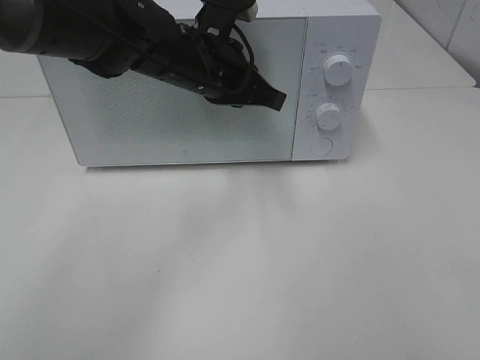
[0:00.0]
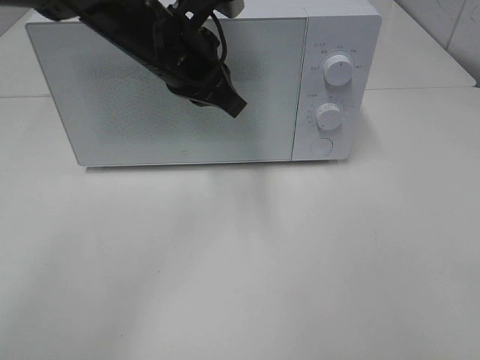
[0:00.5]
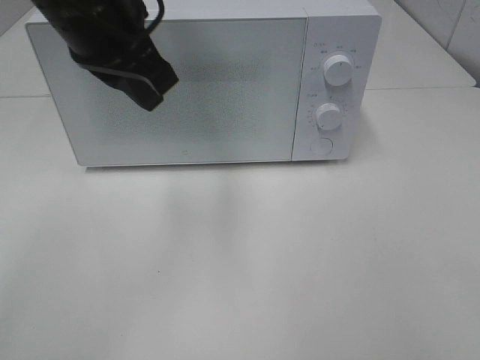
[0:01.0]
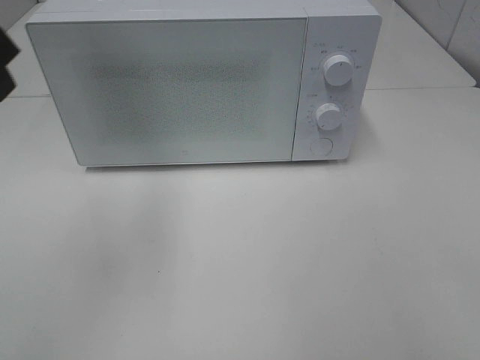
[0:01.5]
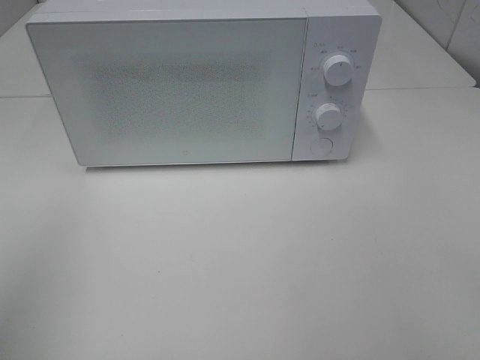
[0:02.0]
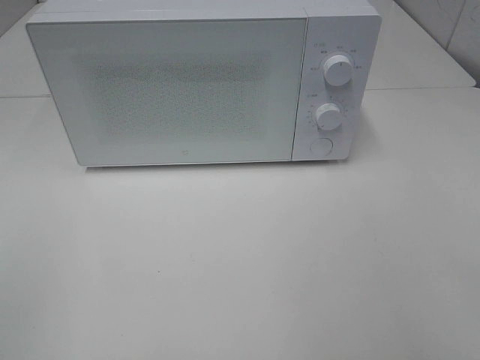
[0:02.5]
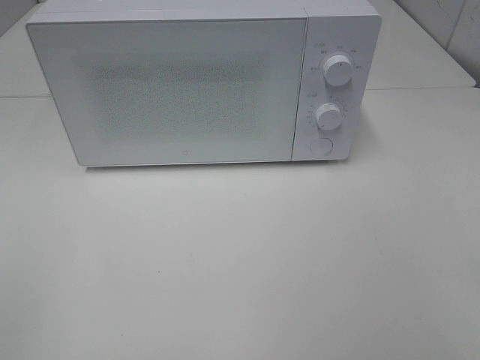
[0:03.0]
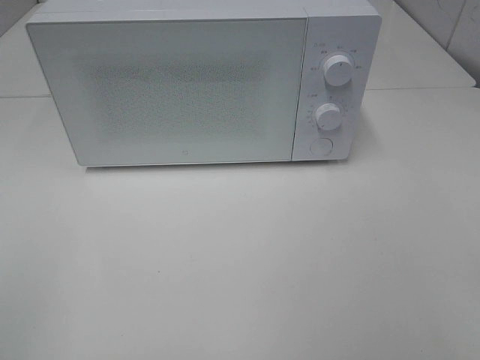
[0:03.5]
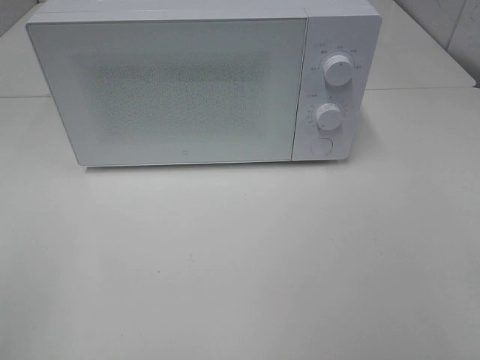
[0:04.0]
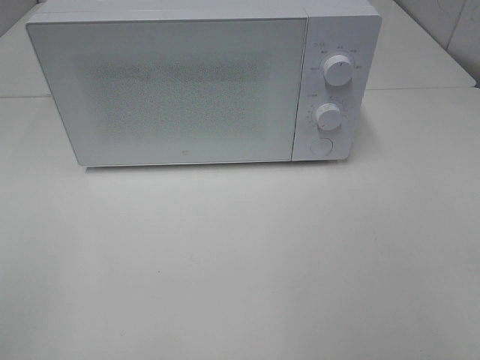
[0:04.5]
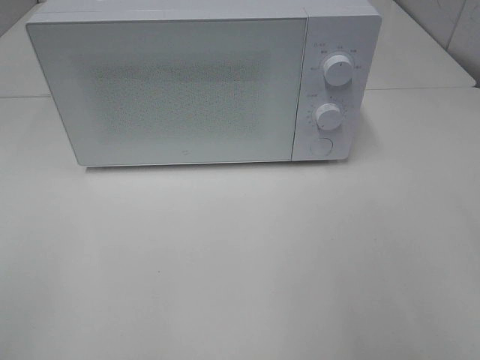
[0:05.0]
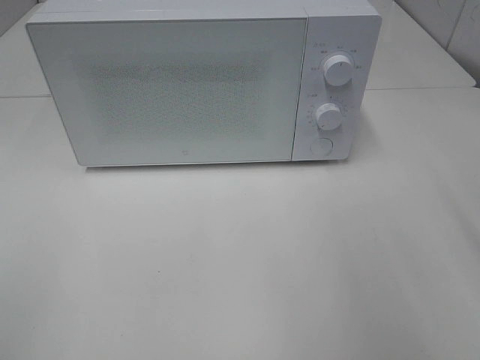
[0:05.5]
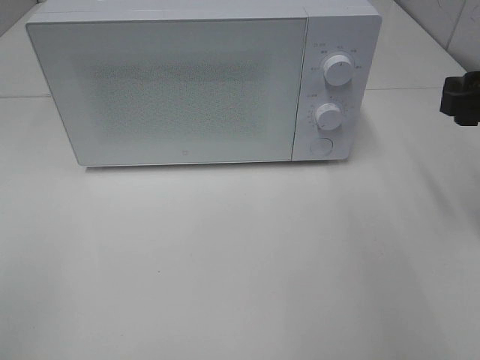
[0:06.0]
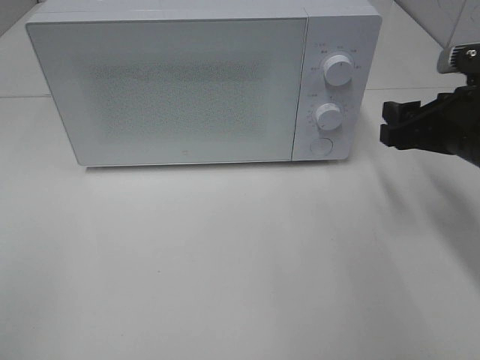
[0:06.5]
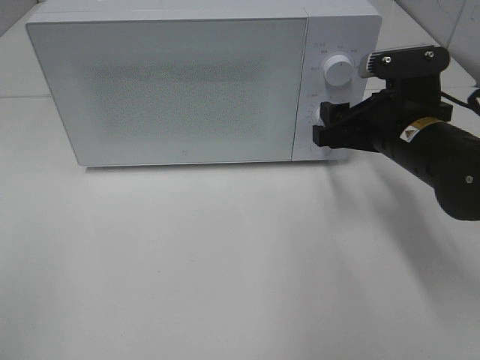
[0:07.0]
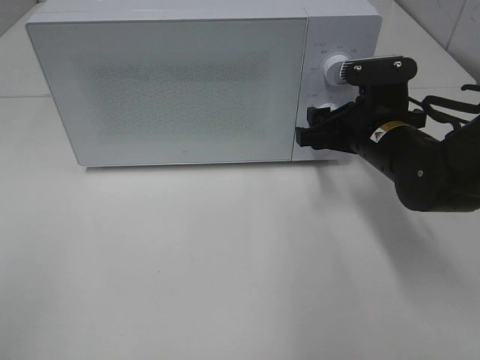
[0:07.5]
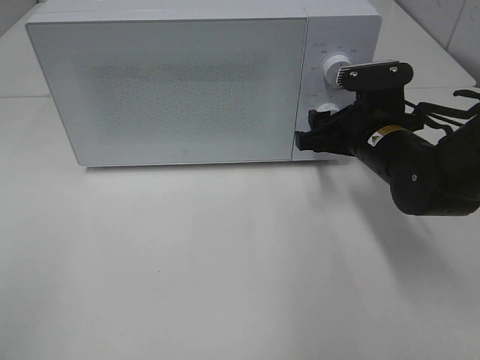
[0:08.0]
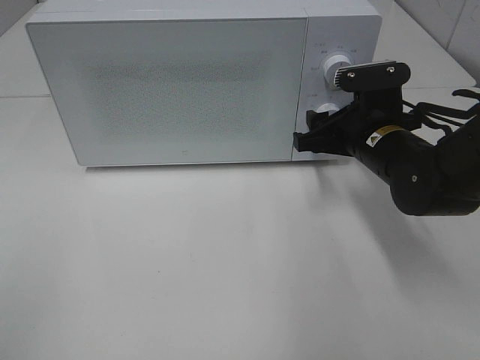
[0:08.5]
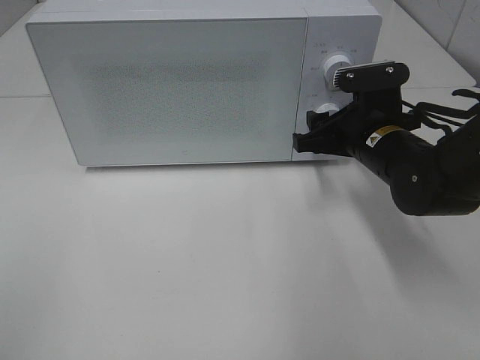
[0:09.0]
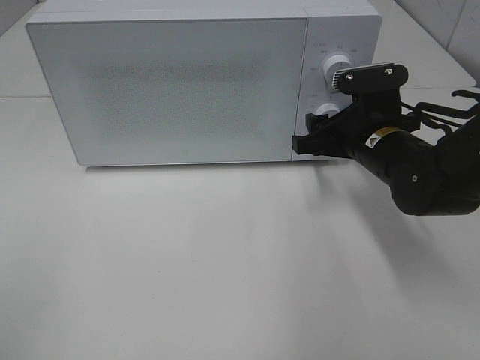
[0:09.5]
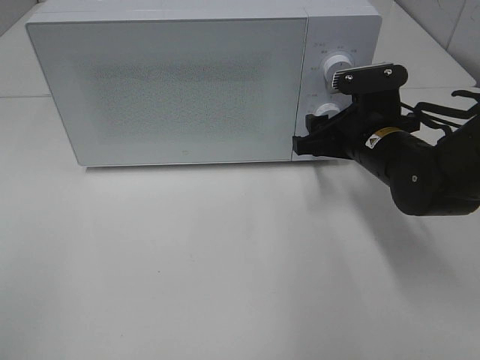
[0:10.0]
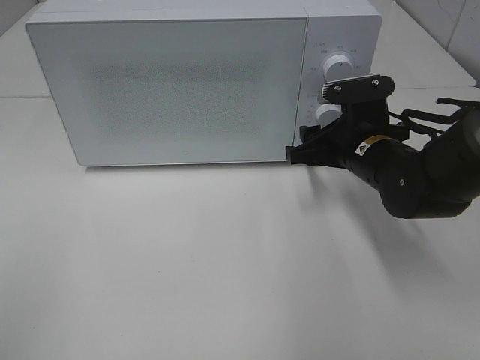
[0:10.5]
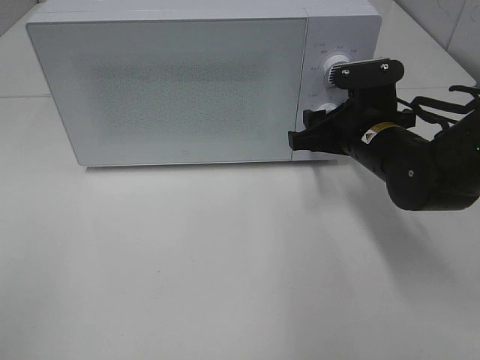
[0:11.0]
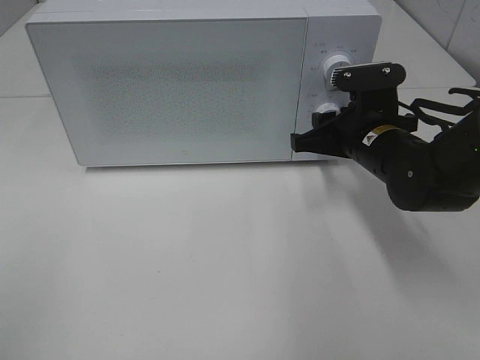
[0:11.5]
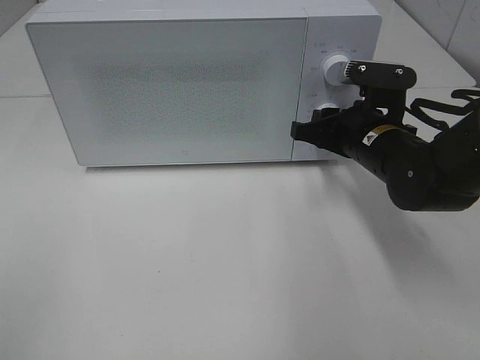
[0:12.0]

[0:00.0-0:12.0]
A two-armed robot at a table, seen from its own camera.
Task of the whole recording: Heat the burger.
0:00.0 to 0:02.0: The left gripper travels backward, to the left and upward by approximately 40 cm.
0:04.0 to 0:06.0: The right gripper heads forward, covering about 25 cm.
0:06.0 to 0:08.0: The right gripper goes about 15 cm to the left, downward and forward.
0:08.0 to 0:10.0: Neither gripper changes place.
0:10.0 to 0:12.0: The grippers stay close to where they were, moving slightly.

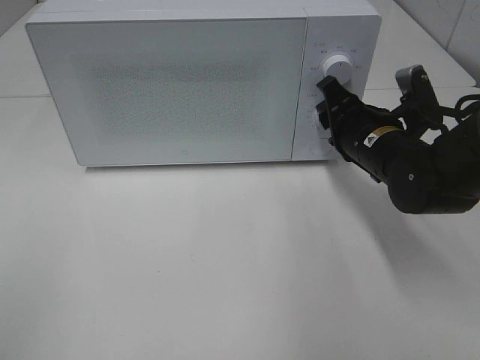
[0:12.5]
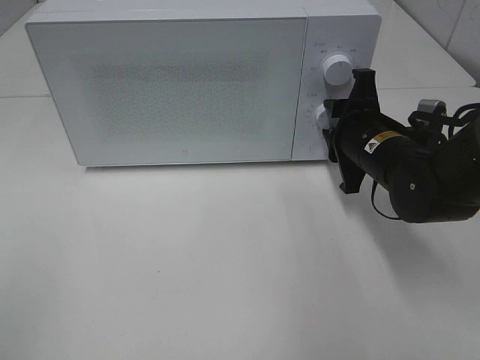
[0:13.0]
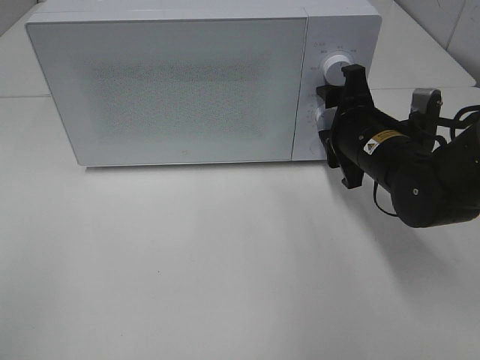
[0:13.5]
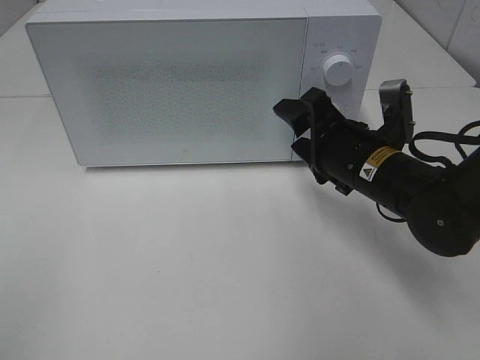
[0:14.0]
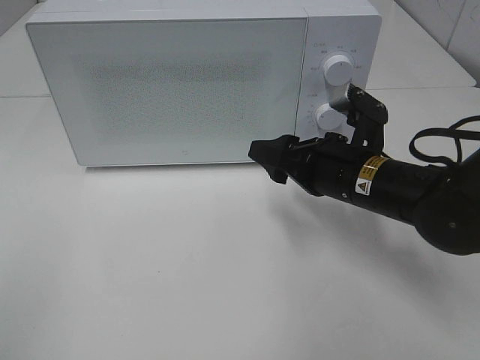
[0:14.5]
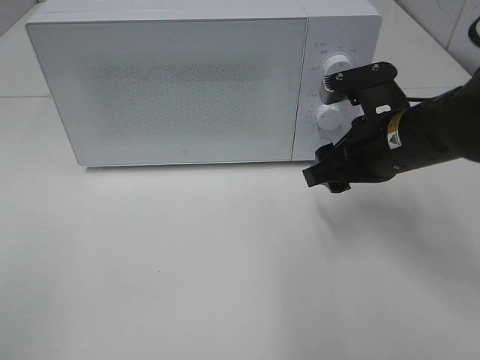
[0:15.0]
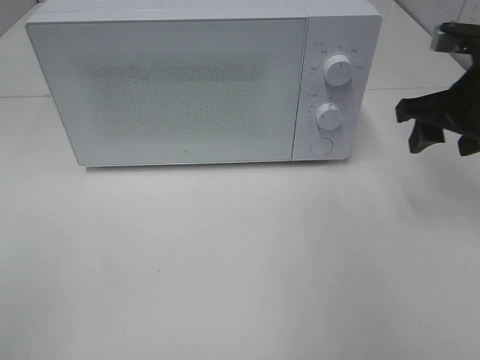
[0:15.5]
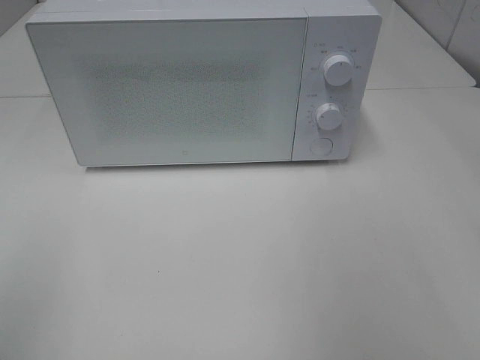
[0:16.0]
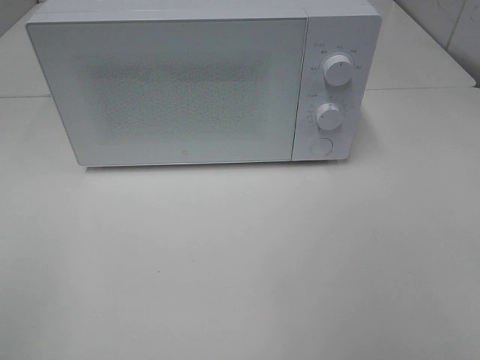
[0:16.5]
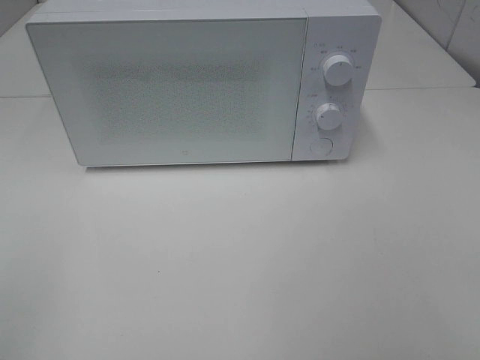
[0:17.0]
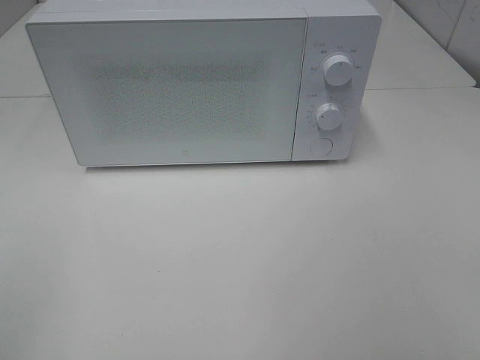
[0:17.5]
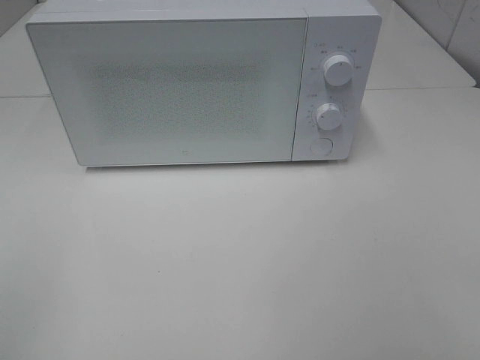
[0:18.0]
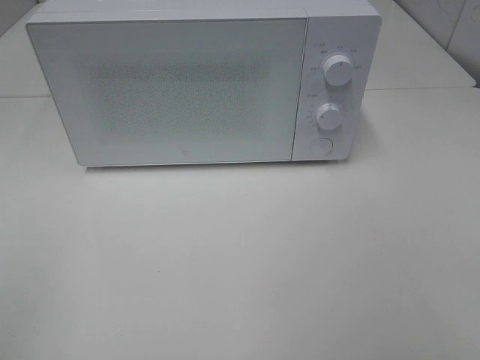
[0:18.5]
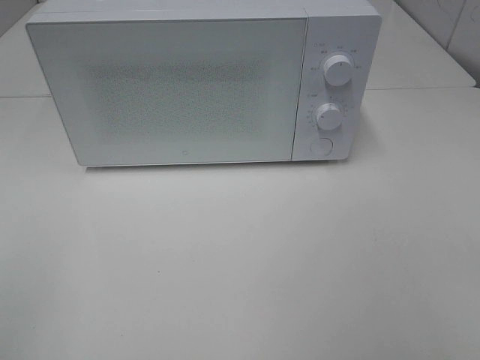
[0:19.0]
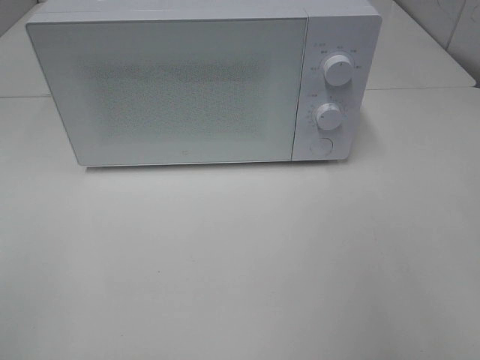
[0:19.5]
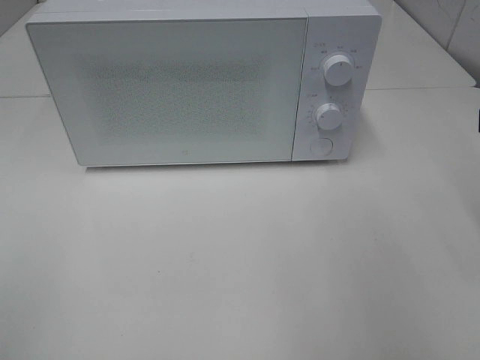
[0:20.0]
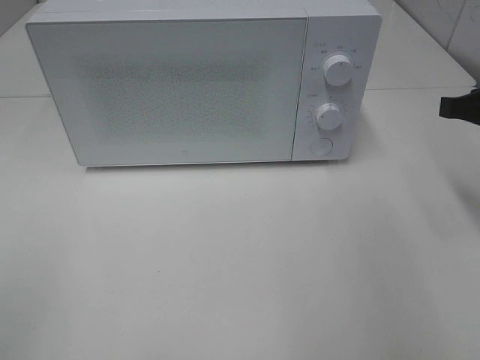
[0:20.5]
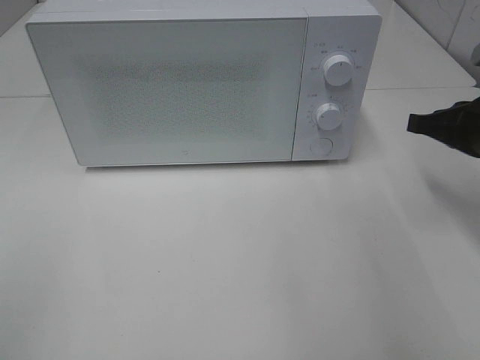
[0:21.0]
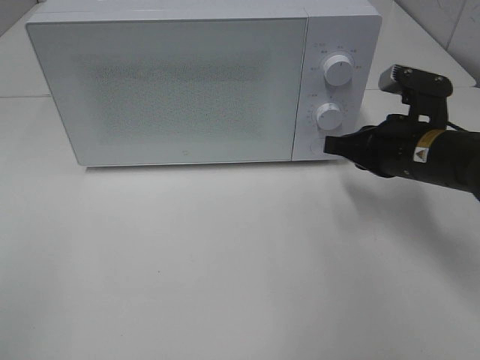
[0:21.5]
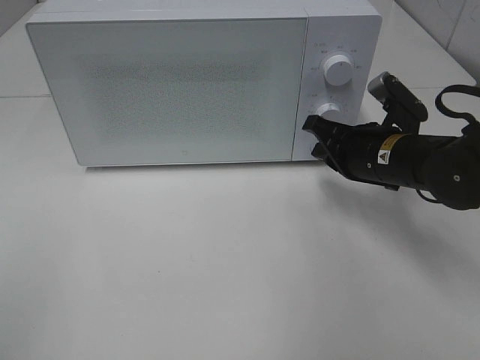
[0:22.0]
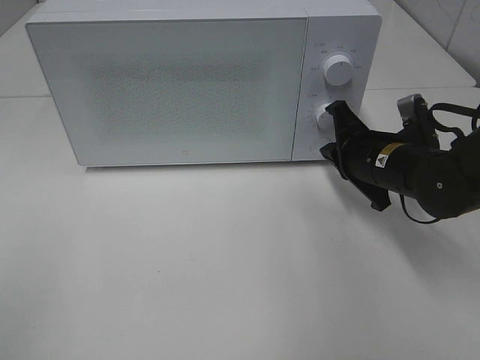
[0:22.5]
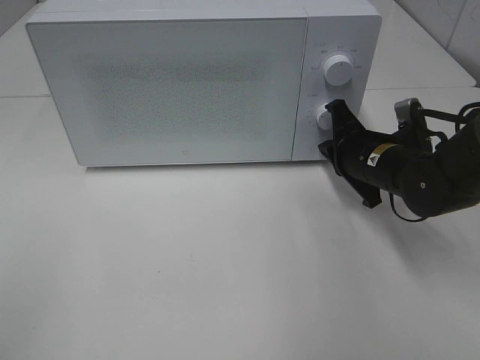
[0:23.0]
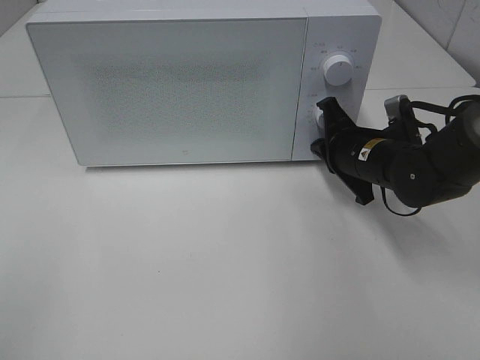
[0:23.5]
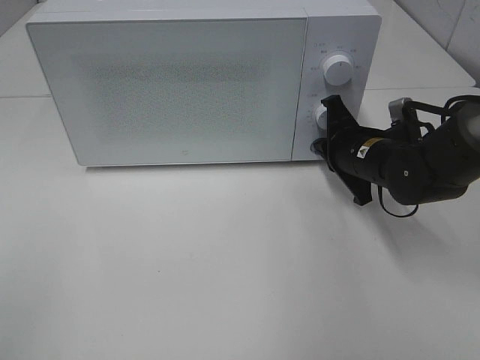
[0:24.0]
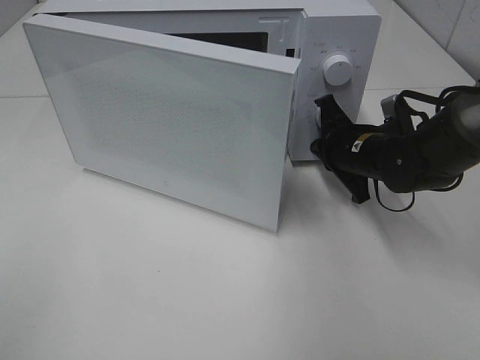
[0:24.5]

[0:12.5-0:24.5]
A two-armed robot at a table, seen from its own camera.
Task of the whole recording: Heat the burger.
0:12.5 to 0:14.5: The right gripper shifts approximately 5 cm backward.
0:14.5 to 0:16.5: The right gripper moves backward, upward and to the right, approximately 35 cm.
0:18.5 to 0:20.5: The right gripper is displaced forward by about 25 cm, and closes.
0:20.5 to 0:22.5: The right gripper goes approximately 15 cm downward, to the left and forward.
0:22.5 to 0:24.5: The grippers move only a little.

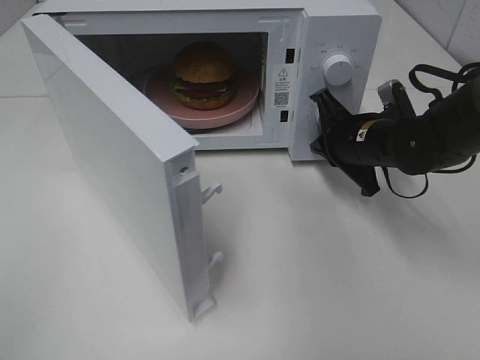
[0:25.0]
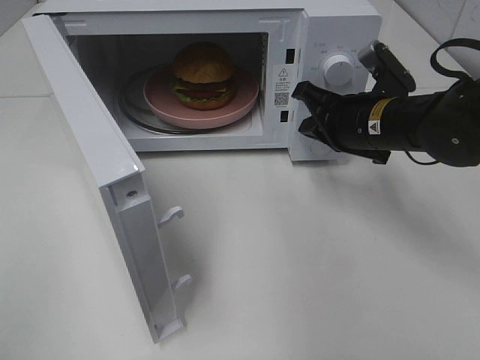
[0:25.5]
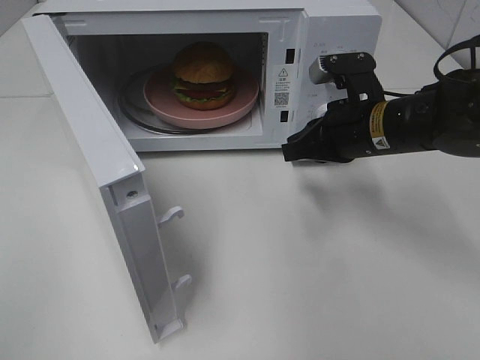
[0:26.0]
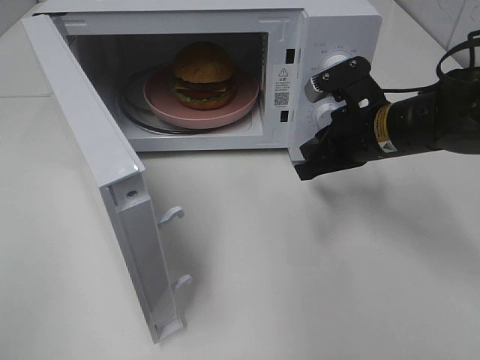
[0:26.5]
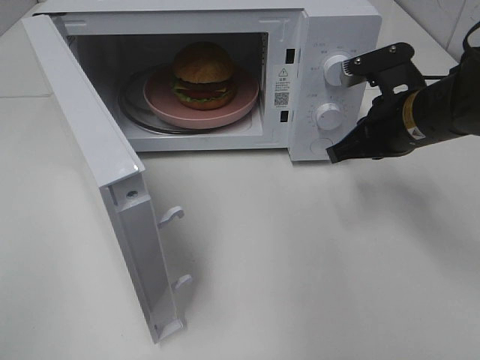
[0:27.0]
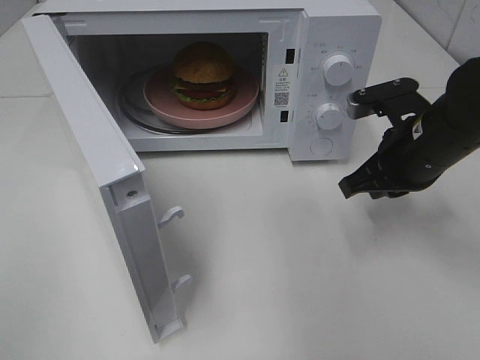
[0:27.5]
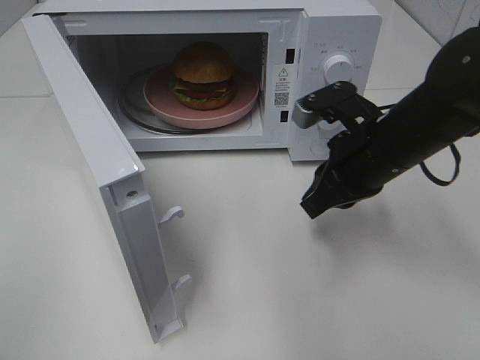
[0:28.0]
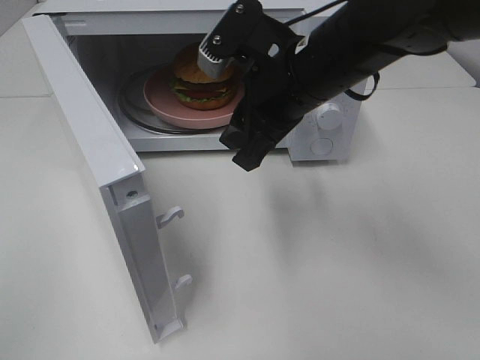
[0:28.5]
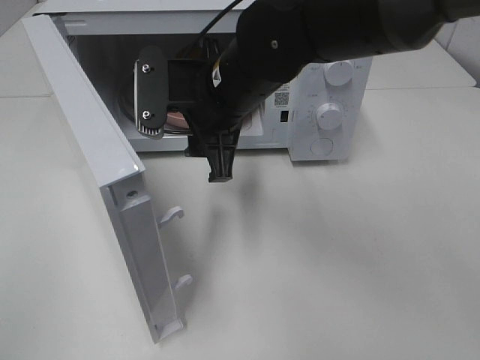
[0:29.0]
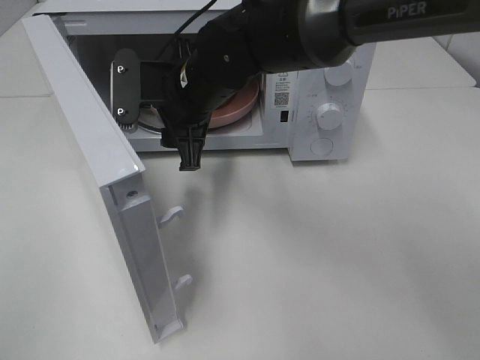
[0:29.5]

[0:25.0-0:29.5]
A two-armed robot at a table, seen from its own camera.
Task of the whole recording: Heat the burger.
0:25.0 to 0:27.0: The right gripper shifts roughly 5 cm upward.
0:27.0 to 0:29.5: The right gripper heads to the left, covering roughly 25 cm, and opens its fingers.
